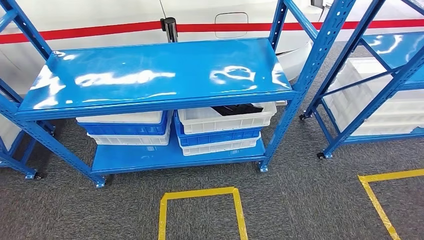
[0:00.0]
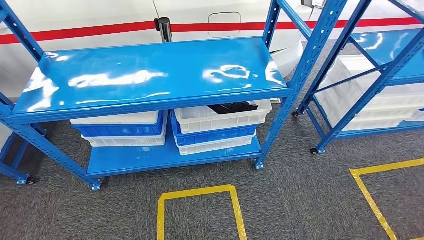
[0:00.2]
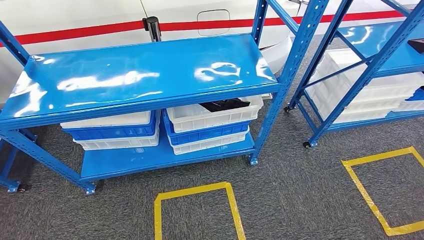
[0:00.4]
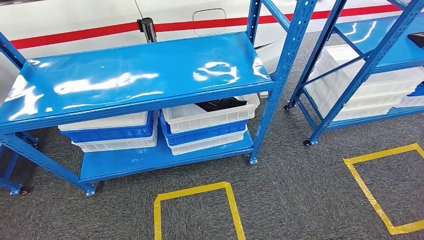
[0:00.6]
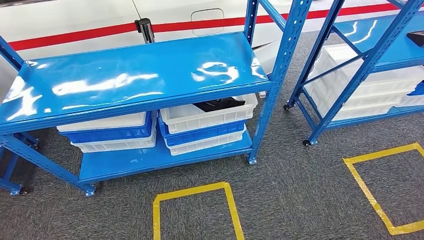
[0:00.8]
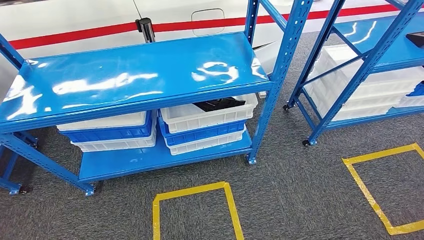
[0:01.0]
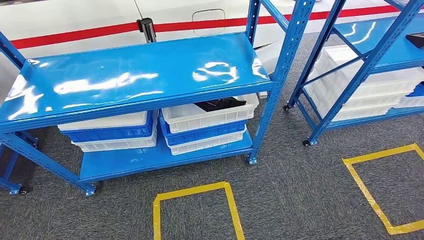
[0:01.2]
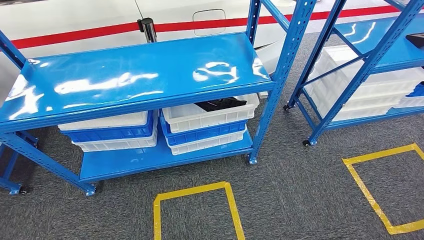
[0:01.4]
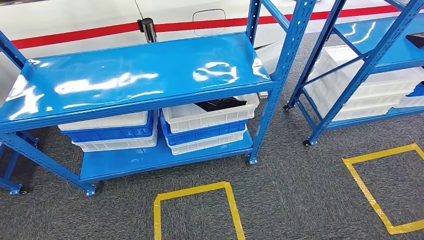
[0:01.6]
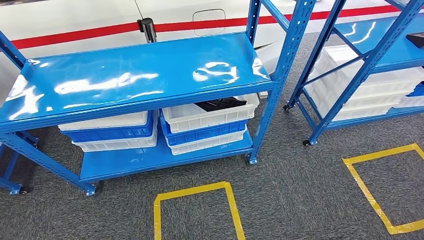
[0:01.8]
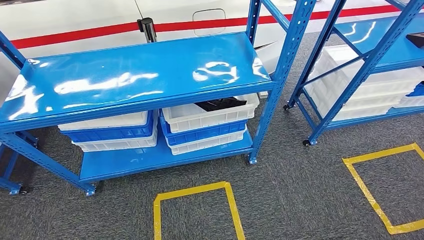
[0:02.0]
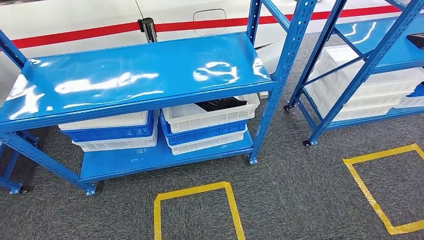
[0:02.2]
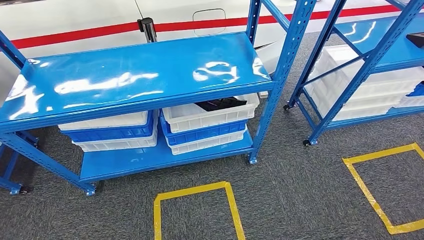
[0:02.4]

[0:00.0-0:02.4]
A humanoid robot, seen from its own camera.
Step, 0:00.0 to 0:02.4: Move to the initial position of the shelf.
0:01.2 to 0:02.4: The hands stay close to where they were, moving slightly.
